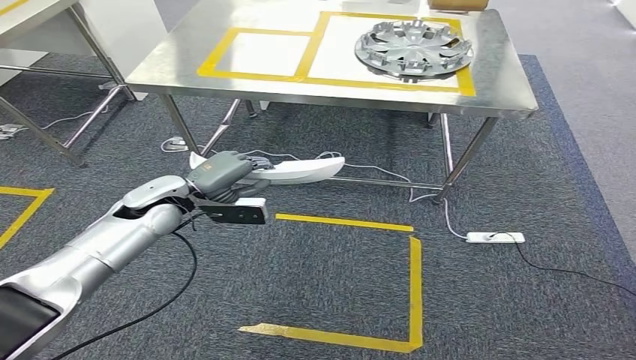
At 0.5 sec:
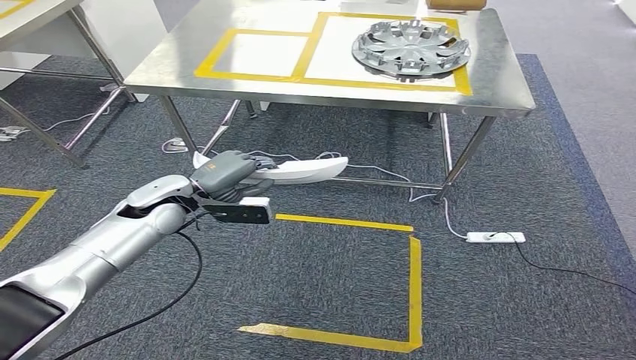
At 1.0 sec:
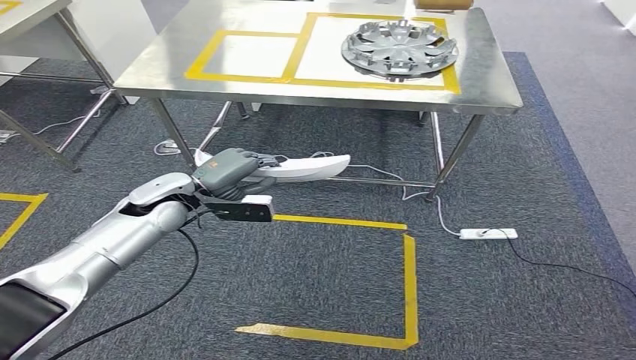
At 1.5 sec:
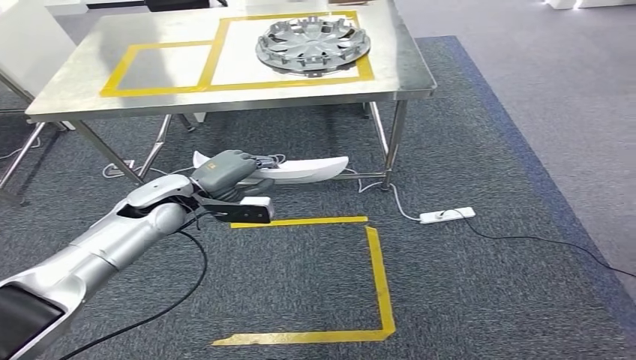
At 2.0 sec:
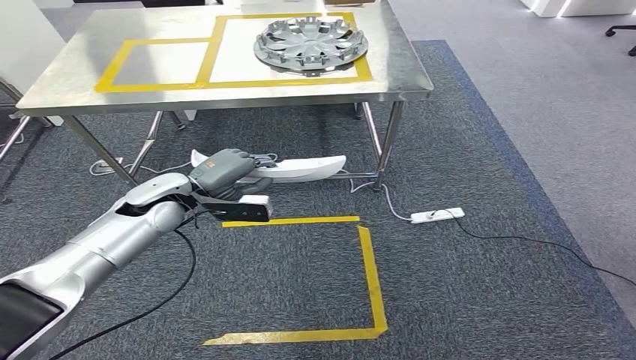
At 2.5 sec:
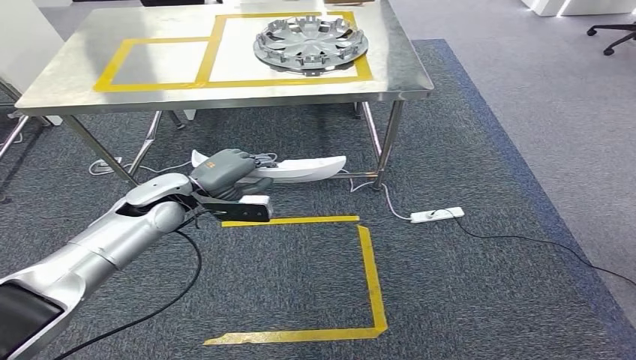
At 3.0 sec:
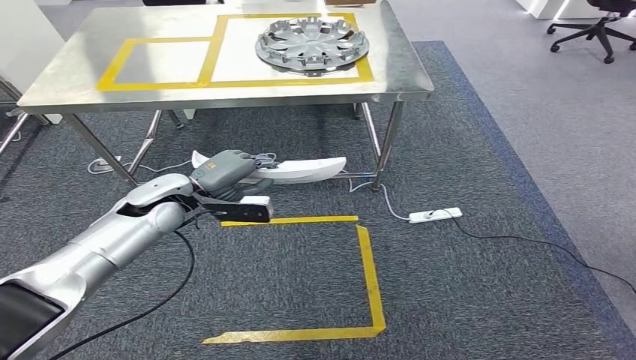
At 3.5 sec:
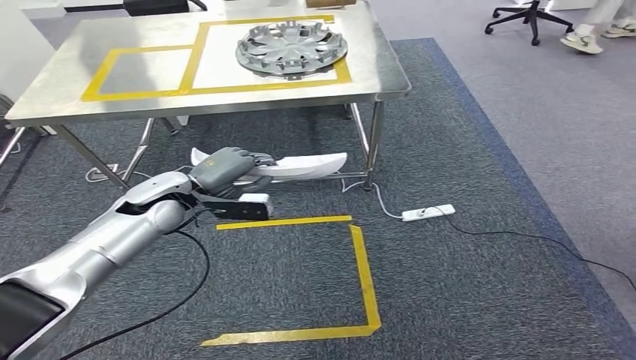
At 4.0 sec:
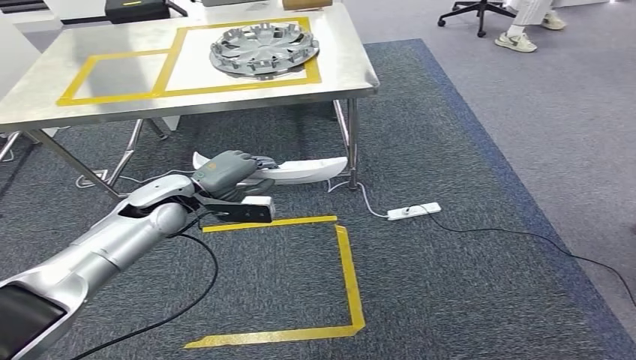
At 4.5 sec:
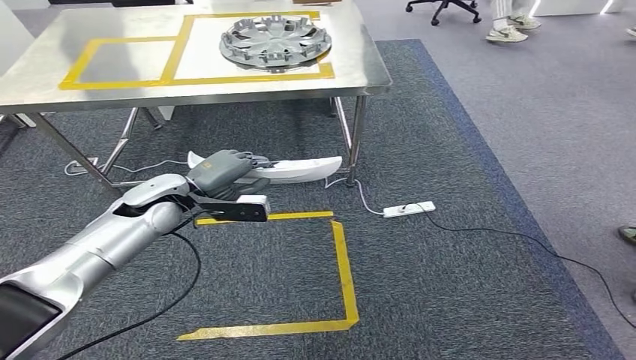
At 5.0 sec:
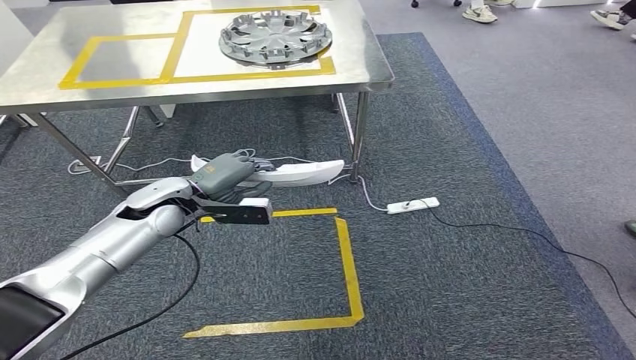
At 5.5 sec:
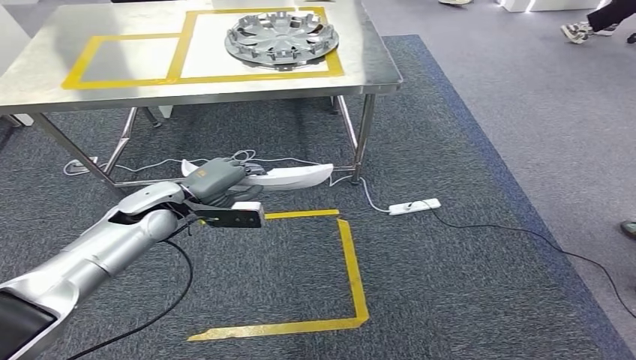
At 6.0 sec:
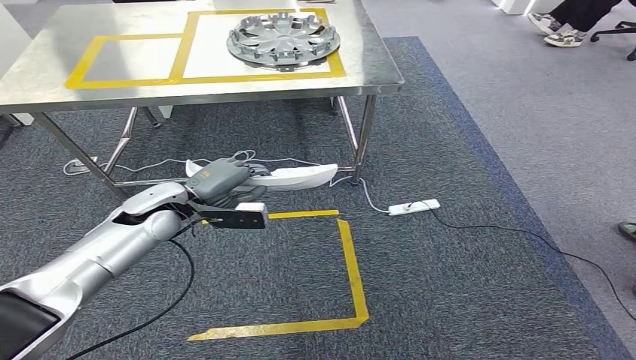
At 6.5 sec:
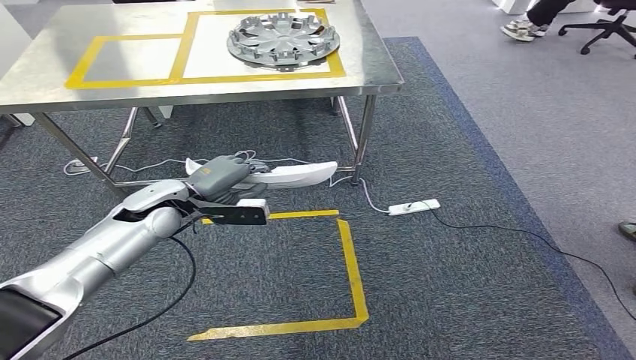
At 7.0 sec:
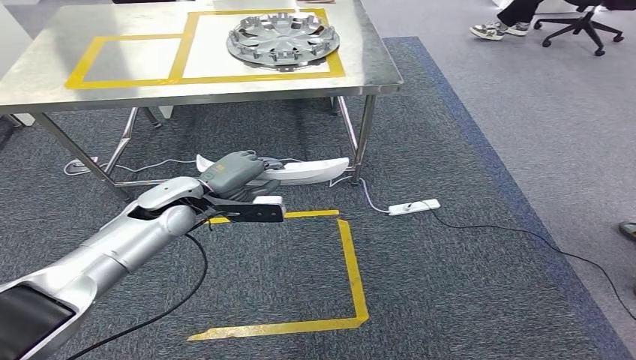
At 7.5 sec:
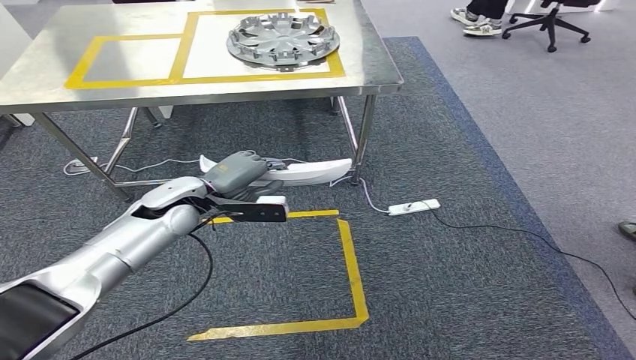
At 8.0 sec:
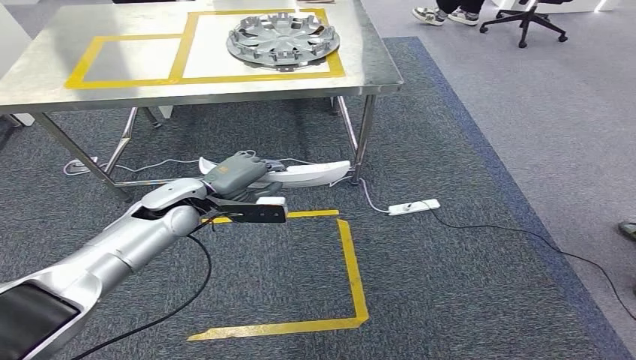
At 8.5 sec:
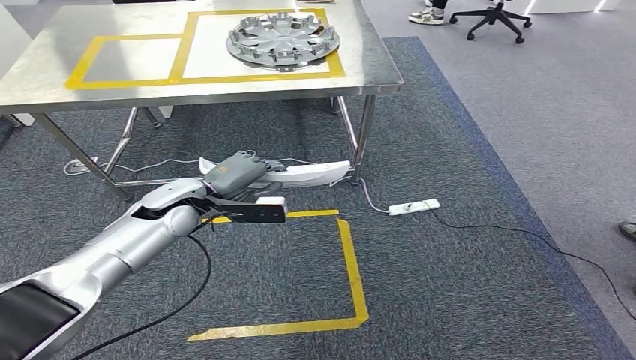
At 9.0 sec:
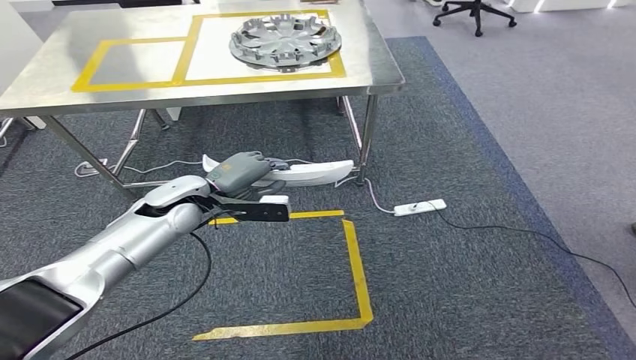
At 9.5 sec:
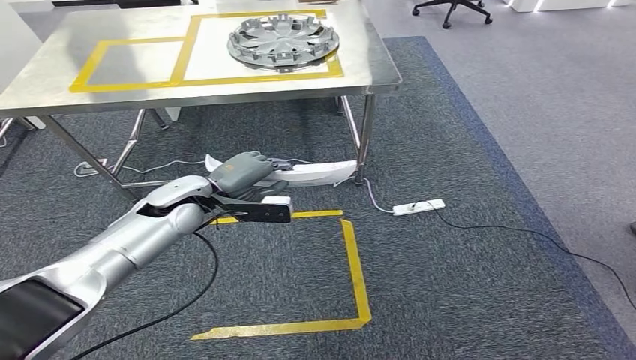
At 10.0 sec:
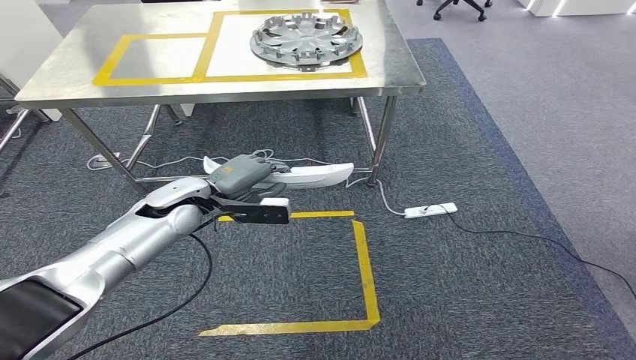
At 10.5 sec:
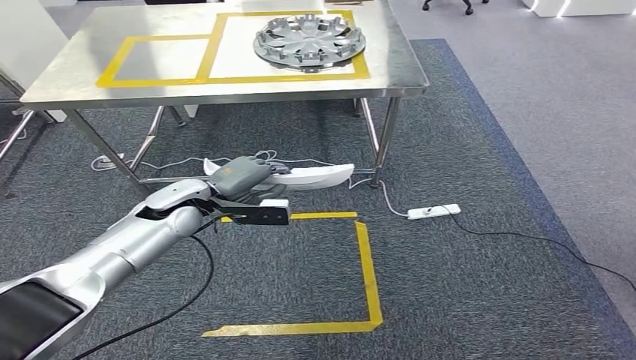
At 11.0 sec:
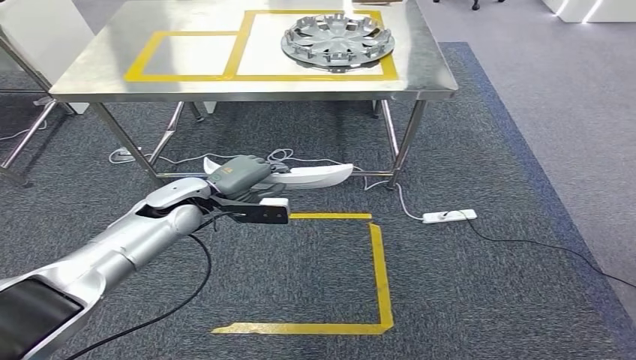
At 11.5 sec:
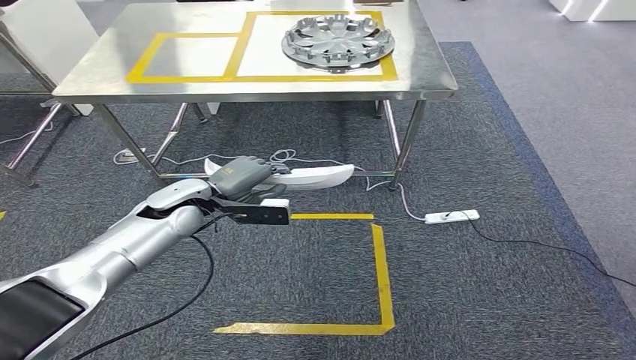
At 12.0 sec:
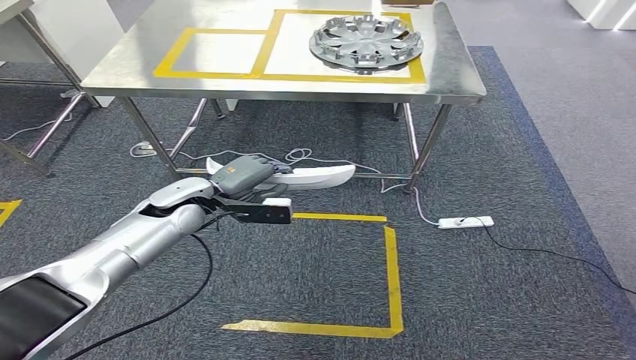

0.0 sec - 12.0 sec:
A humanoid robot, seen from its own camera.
6.0 sec - 8.0 sec: The hands move only a little.

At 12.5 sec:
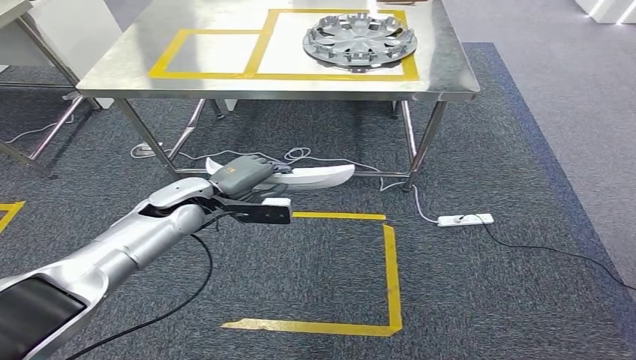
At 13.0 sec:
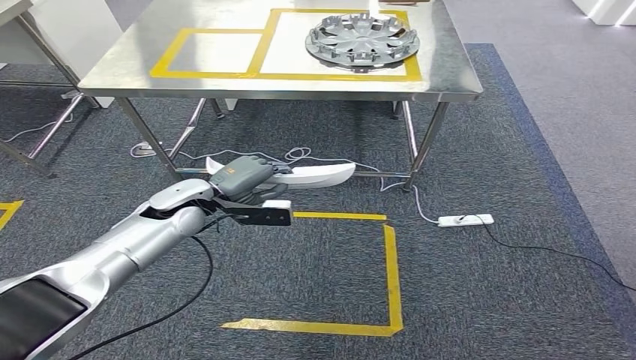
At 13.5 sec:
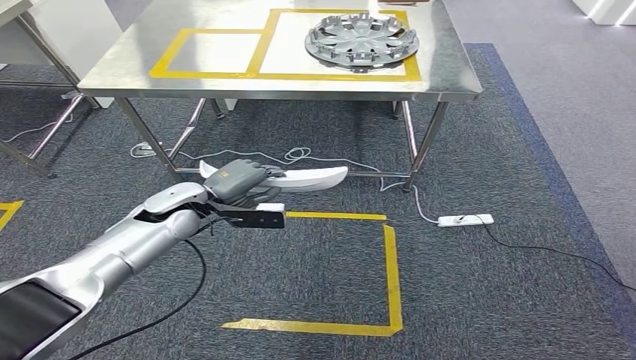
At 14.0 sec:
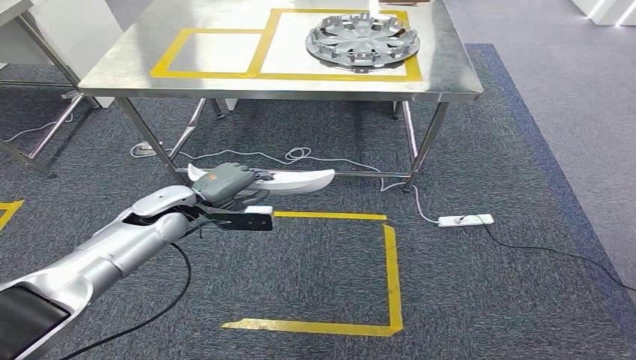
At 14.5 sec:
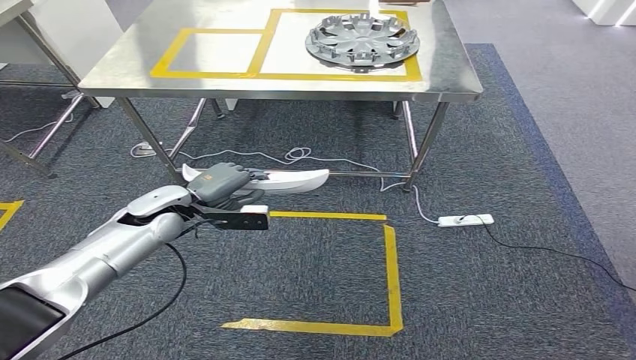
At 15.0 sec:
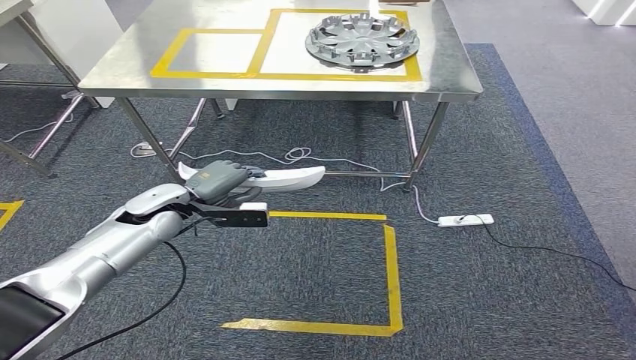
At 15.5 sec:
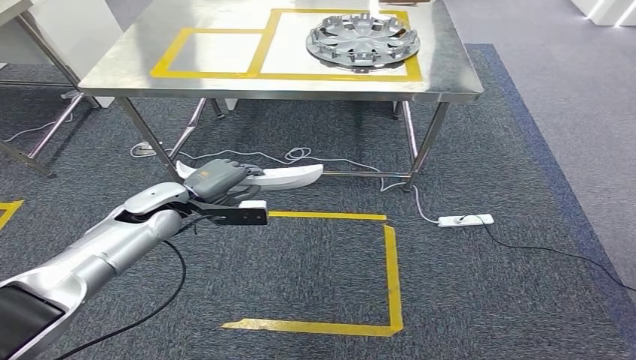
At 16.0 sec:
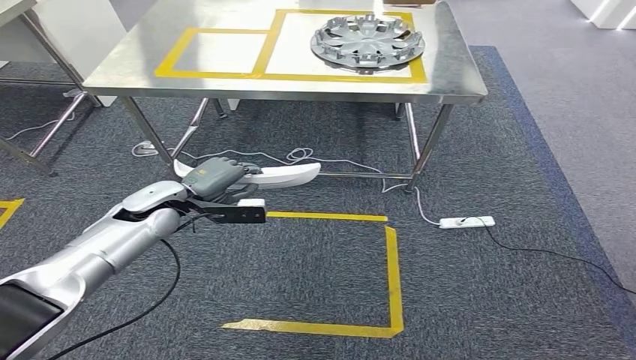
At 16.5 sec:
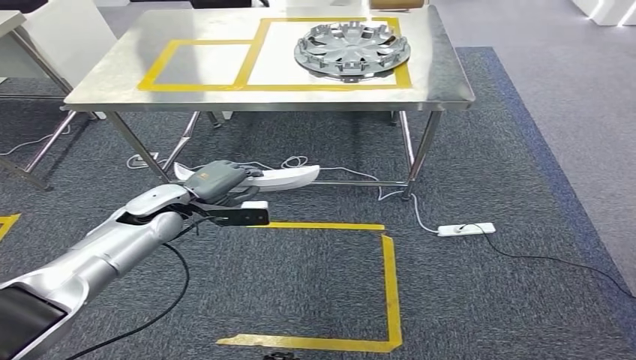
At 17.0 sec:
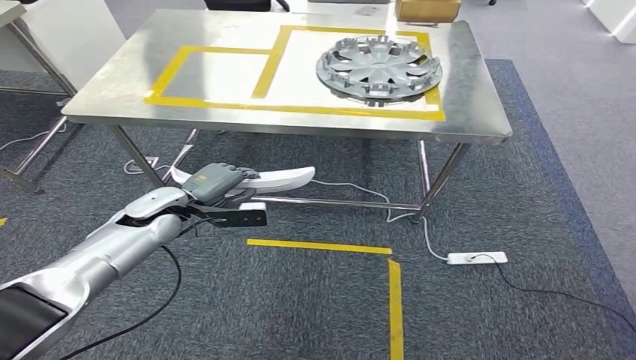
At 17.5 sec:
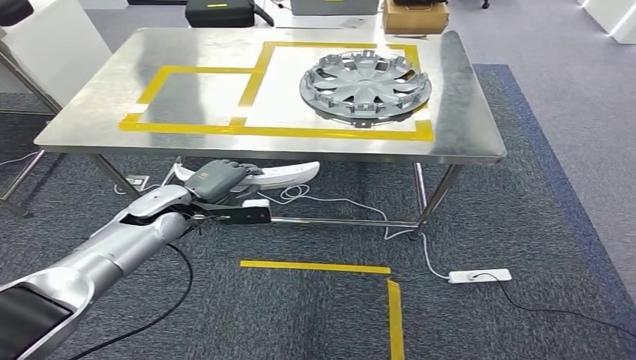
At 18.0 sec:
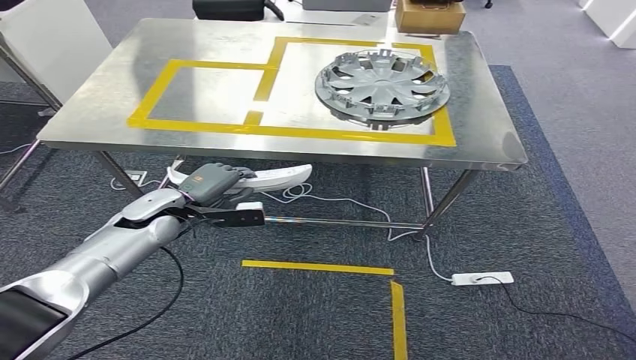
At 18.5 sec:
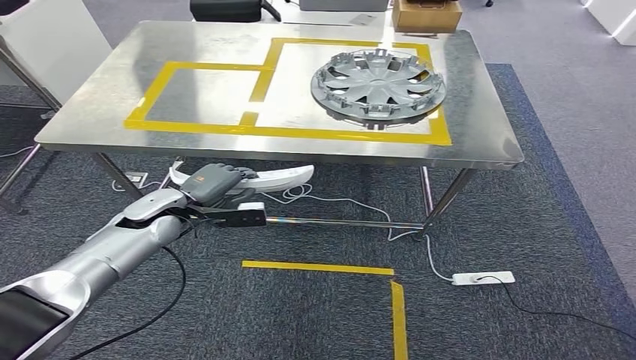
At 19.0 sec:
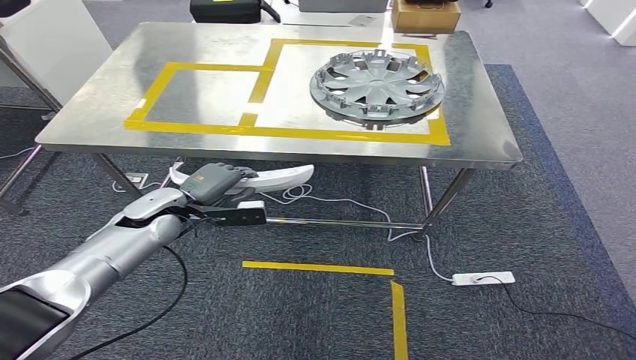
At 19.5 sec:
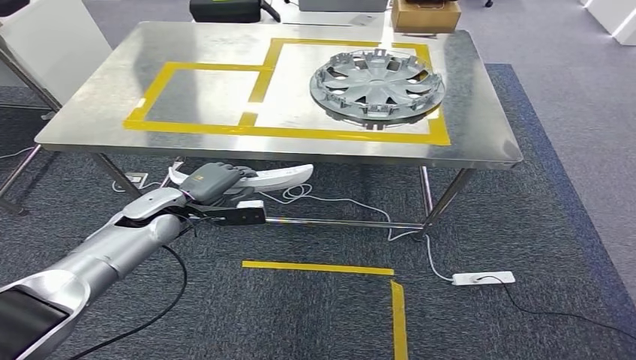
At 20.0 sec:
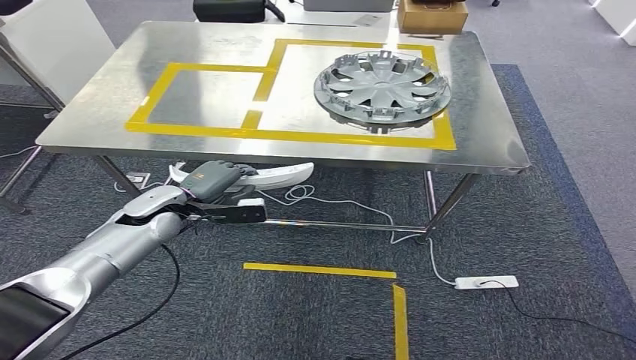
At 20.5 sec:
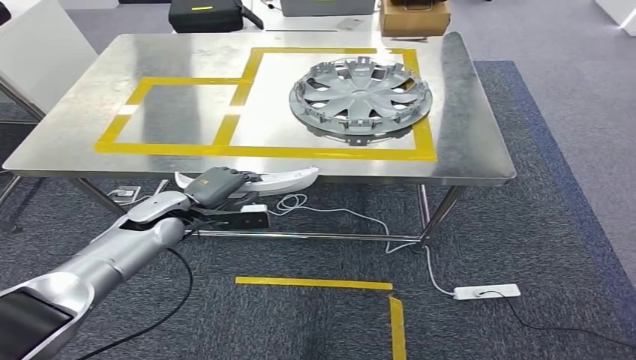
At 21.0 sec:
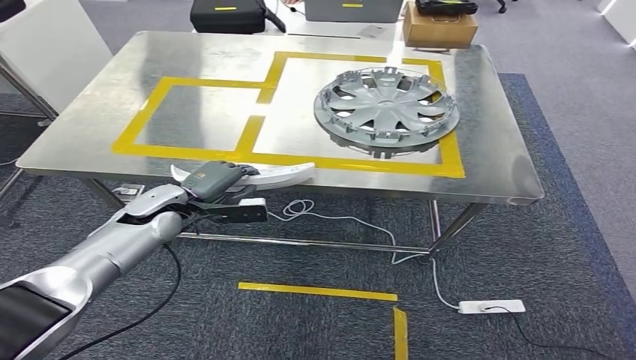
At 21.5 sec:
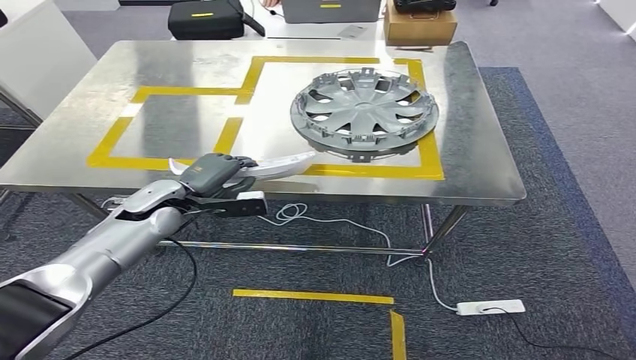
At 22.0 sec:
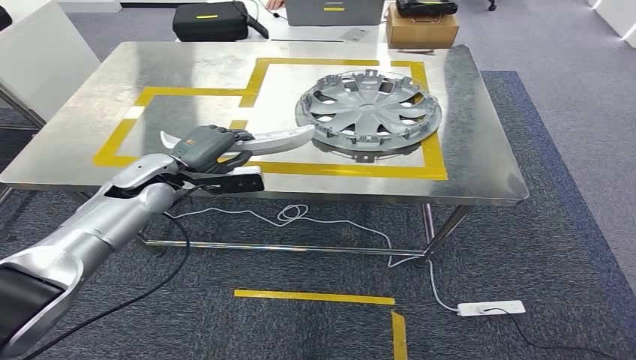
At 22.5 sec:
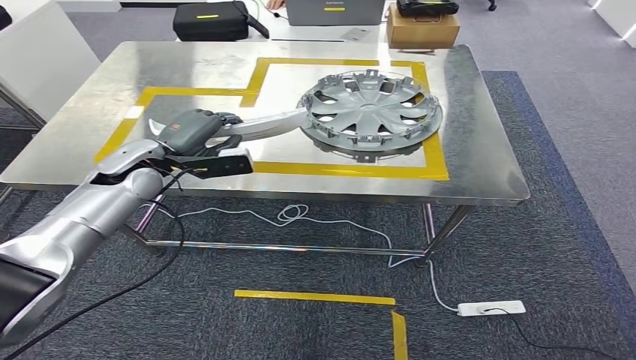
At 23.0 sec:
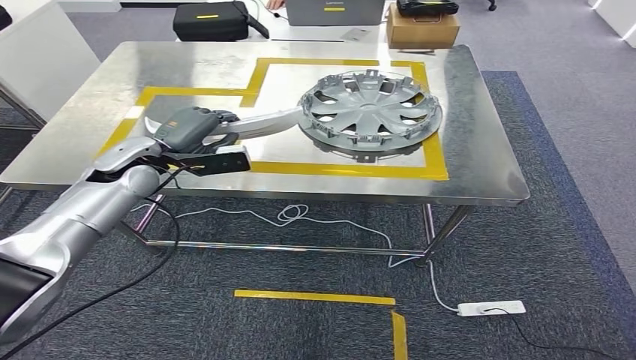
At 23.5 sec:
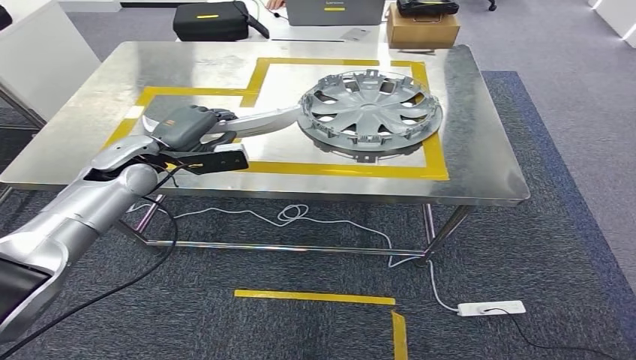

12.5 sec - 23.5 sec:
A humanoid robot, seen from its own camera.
Step, 12.5 sec - 16.0 sec: Move the small component to the workbench.
12.5 sec - 14.5 sec: The hands move only a little.
14.5 sec - 16.0 sec: The two hands keep their place.
18.0 sec - 20.0 sec: Both hands stay put.
